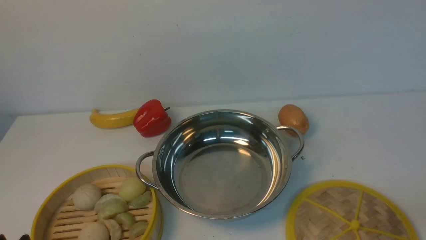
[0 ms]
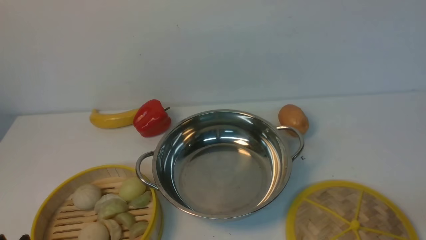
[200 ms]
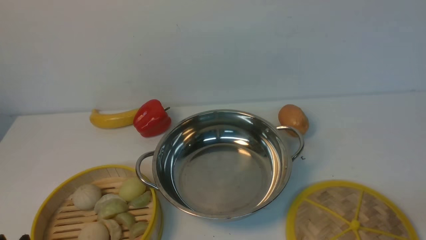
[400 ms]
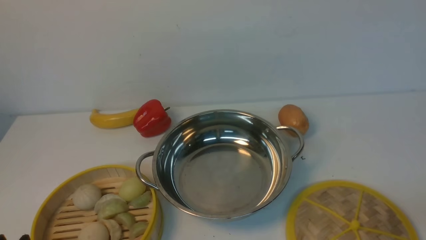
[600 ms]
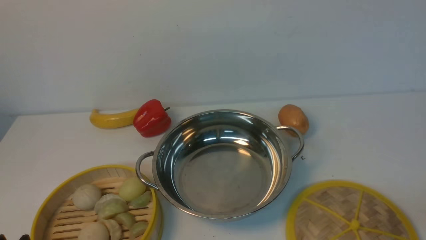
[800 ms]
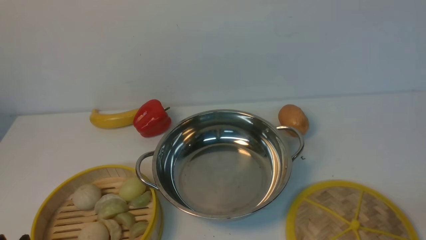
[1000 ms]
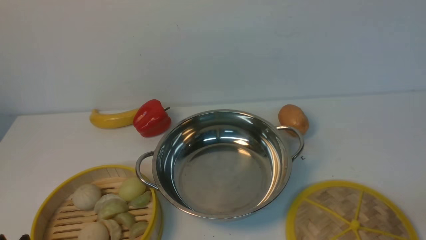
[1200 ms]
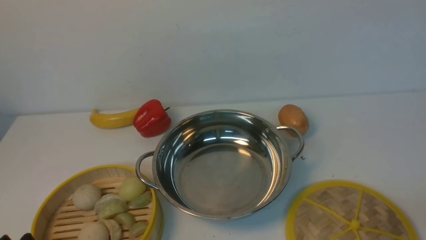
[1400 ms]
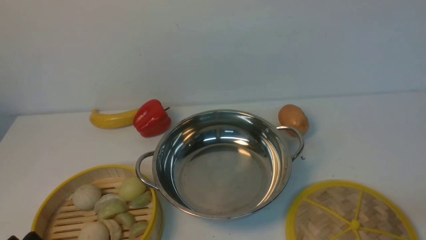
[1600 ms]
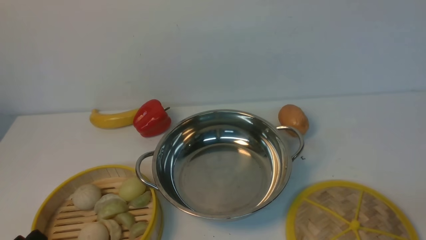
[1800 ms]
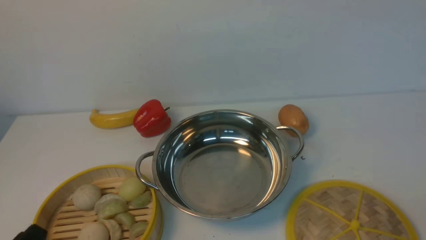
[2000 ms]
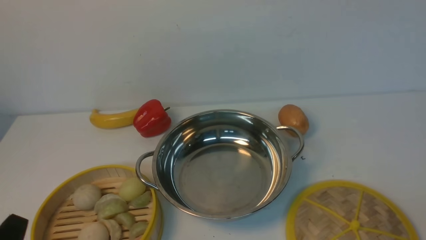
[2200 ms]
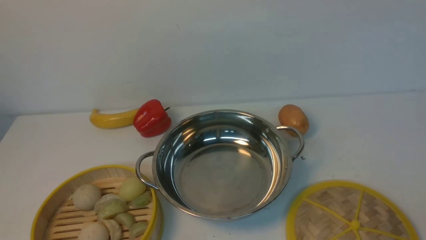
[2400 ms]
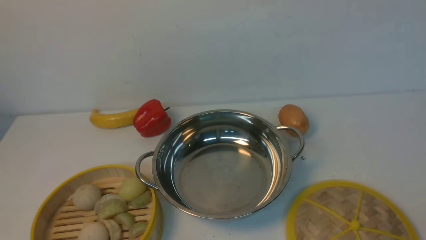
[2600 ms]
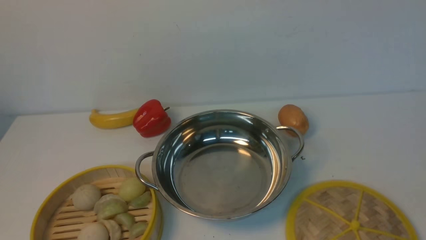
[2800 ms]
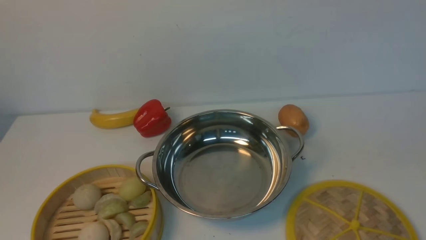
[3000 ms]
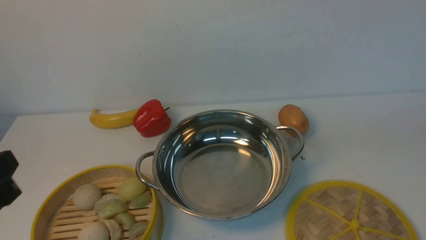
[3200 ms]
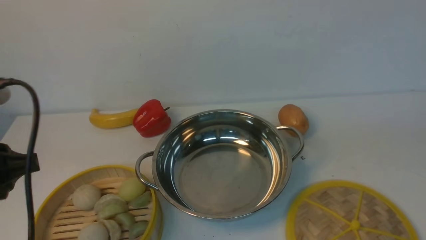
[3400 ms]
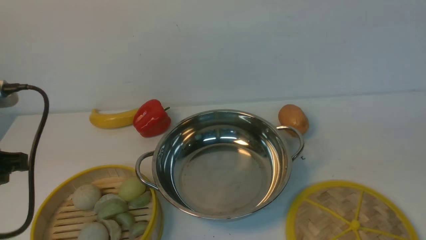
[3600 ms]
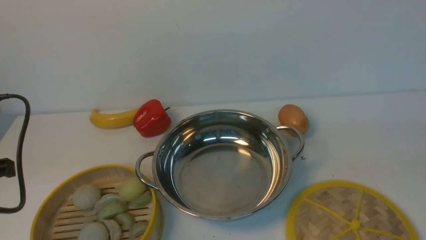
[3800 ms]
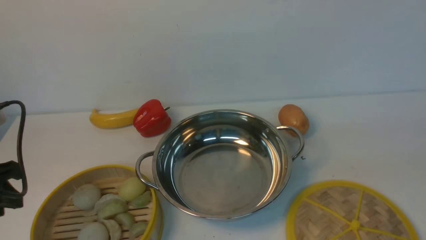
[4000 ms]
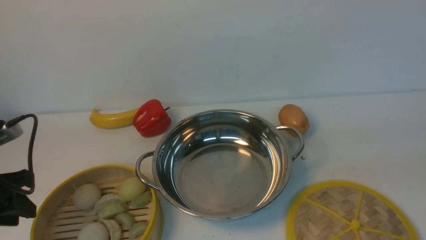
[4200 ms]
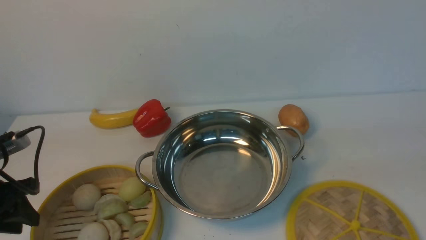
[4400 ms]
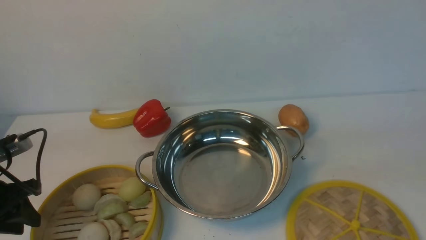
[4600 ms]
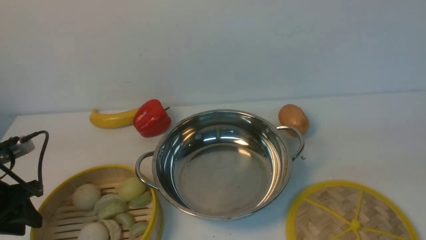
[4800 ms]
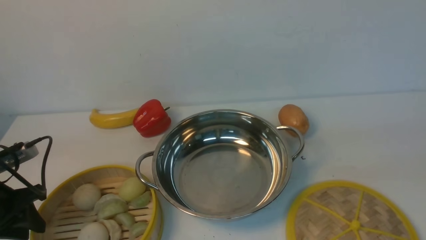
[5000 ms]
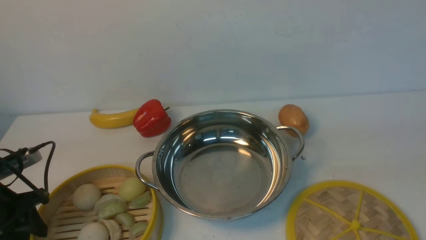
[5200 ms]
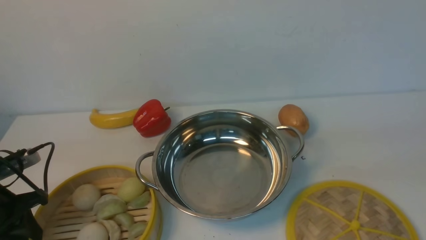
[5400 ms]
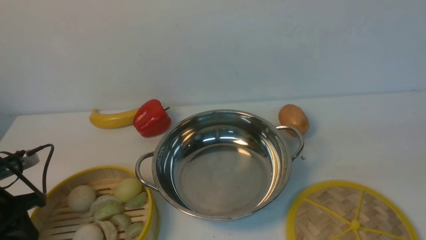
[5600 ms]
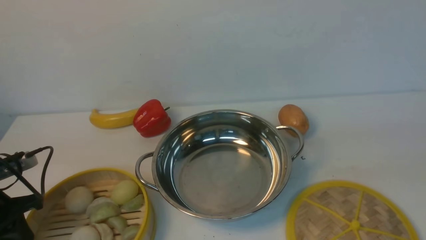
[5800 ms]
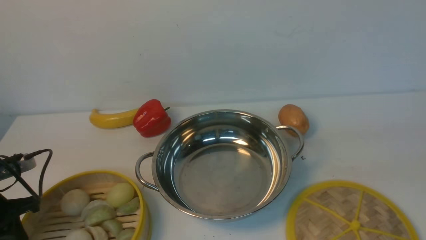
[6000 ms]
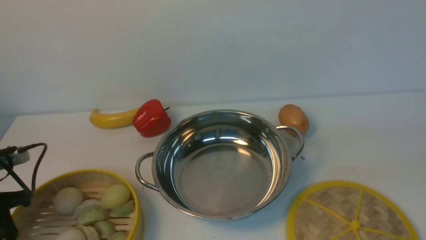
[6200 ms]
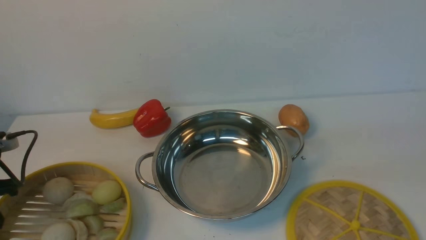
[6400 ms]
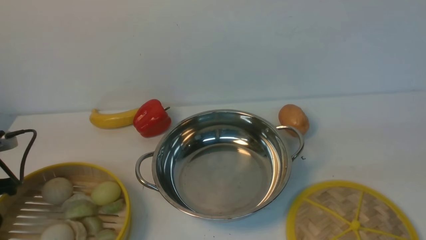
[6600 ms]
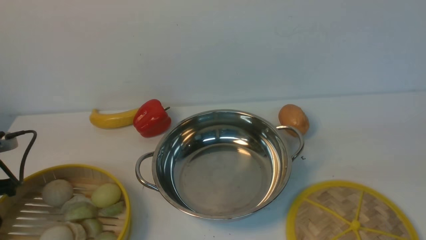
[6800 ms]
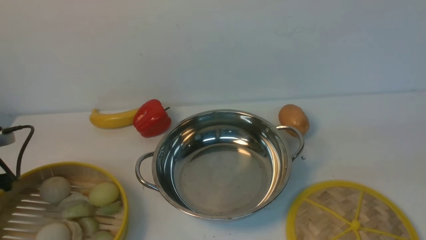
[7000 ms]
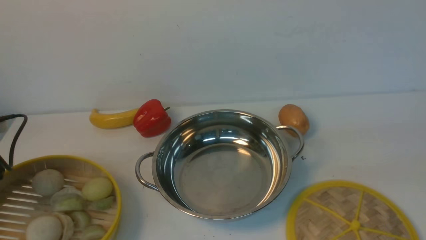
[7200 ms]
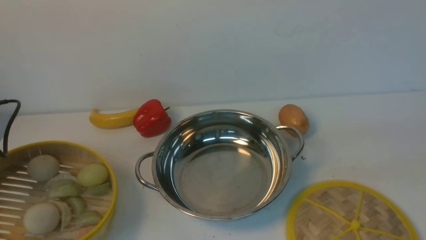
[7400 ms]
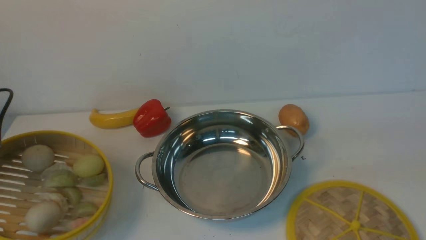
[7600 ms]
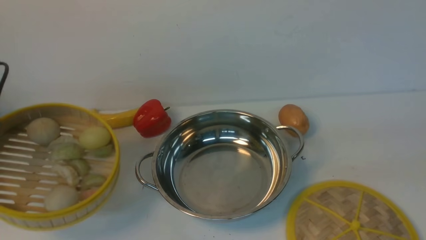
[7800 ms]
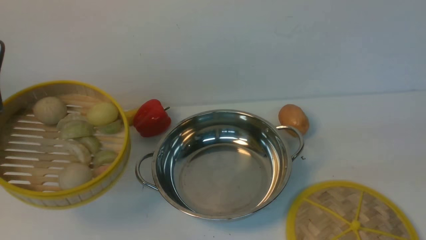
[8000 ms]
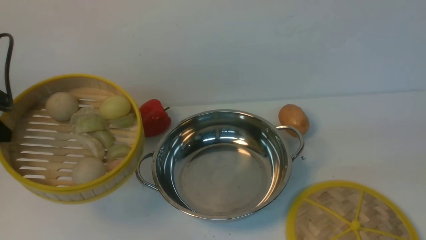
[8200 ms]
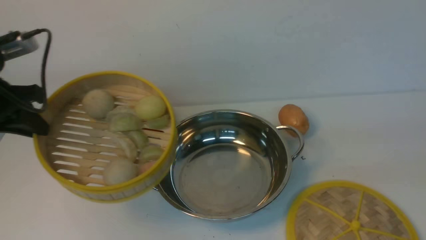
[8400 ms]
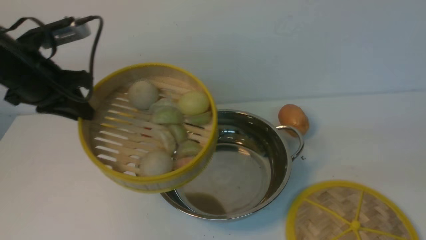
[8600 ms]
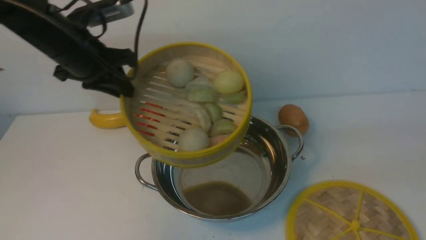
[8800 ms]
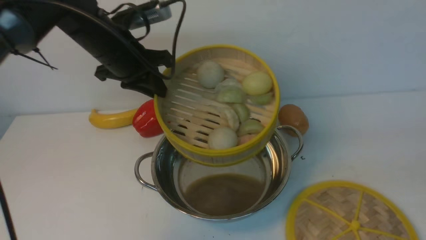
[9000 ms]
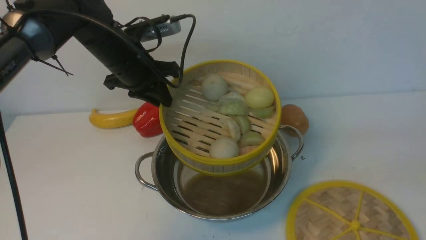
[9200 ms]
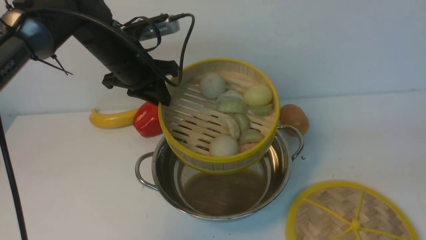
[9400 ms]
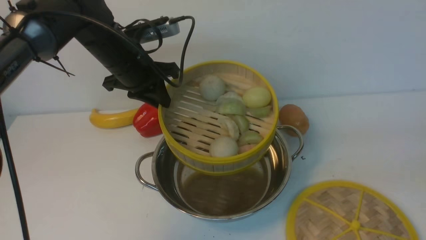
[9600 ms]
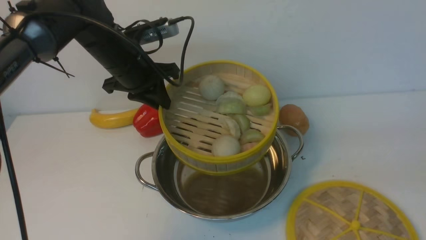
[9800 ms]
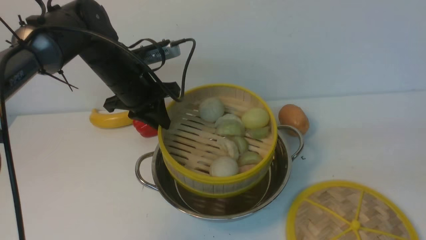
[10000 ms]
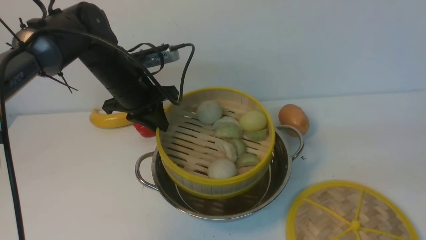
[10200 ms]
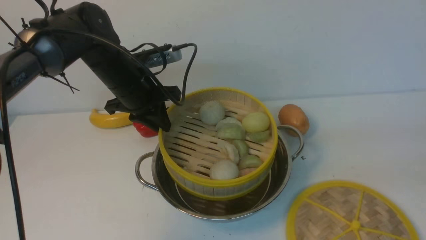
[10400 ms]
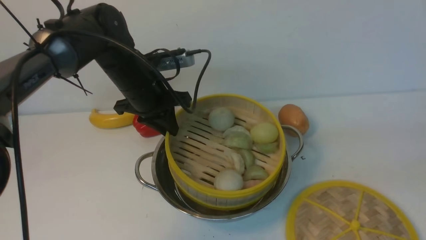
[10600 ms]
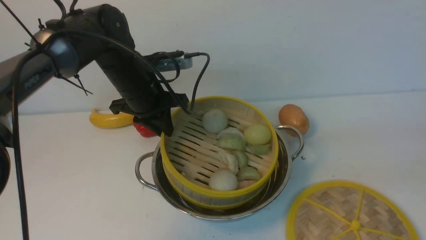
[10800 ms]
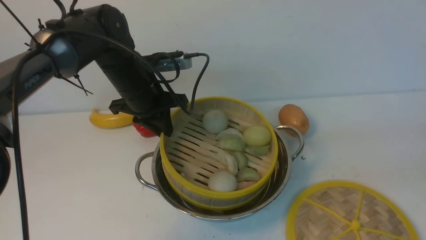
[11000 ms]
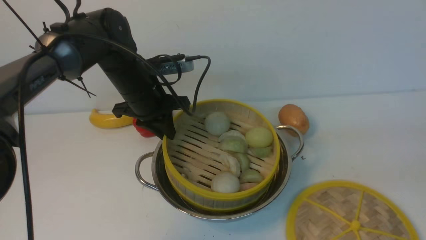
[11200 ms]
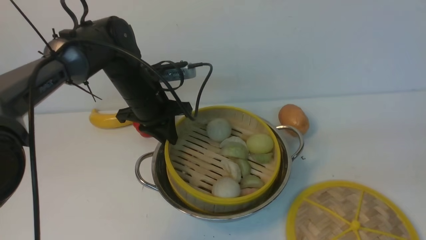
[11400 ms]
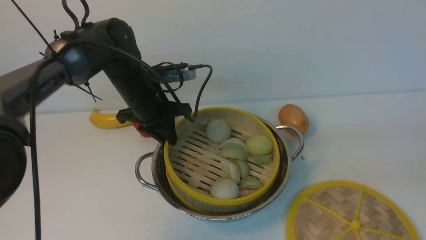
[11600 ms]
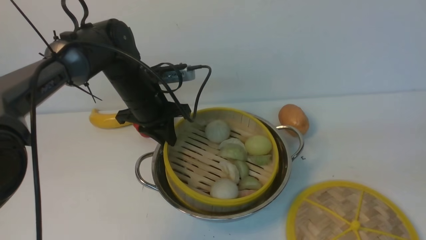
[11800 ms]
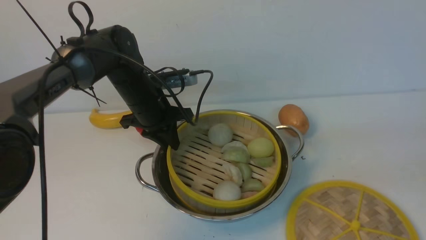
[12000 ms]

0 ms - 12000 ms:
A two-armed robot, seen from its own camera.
Task of the whole recording: place the steamer in the pot on the white table, and put the lid on the steamer.
Step, 0 ms - 7800 ms: use the left arm to lift the steamer closest to it.
3000 ms - 4400 ms: The left gripper travels forward, to the left and downward by approximately 20 cm.
4400 ms - 6000 ms: The left gripper closes its fingers.
6000 ms - 7600 ms: The left gripper moves upward, roughly 10 cm.
7600 ms - 9000 ms: The left gripper moves to the right and forward, approximately 25 cm.
9000 ms - 10400 ms: The left gripper travels downward by about 5 cm.

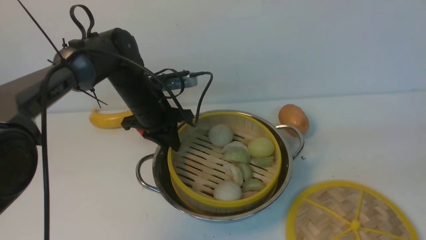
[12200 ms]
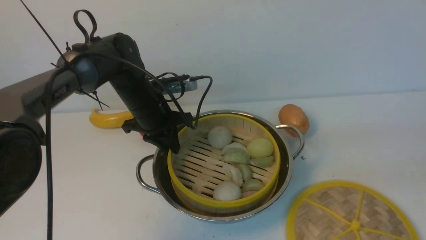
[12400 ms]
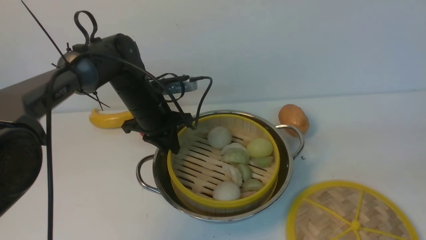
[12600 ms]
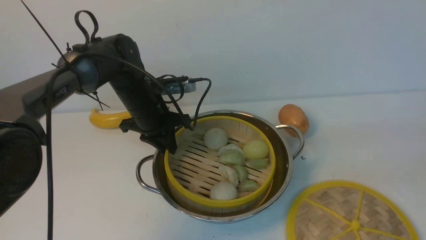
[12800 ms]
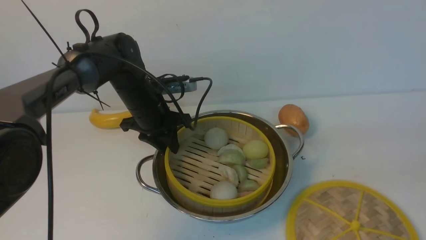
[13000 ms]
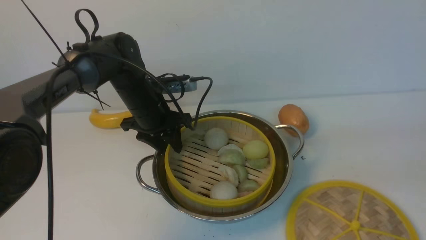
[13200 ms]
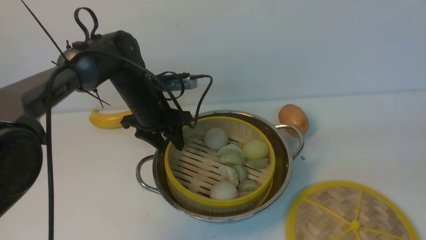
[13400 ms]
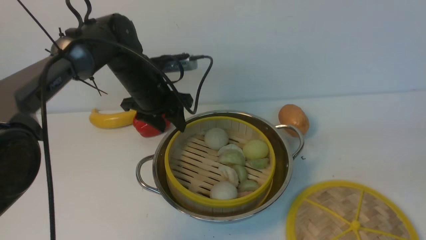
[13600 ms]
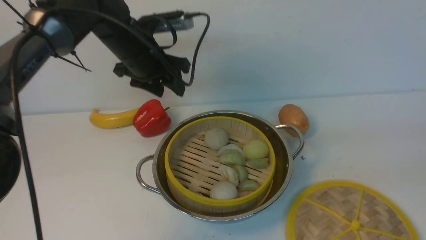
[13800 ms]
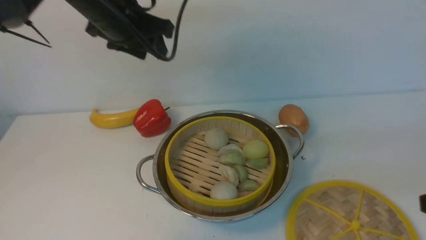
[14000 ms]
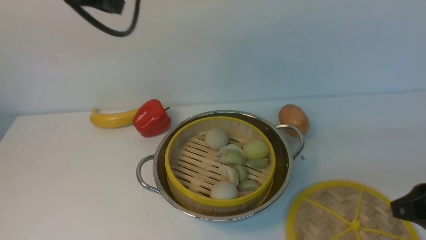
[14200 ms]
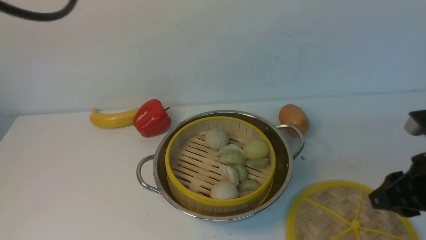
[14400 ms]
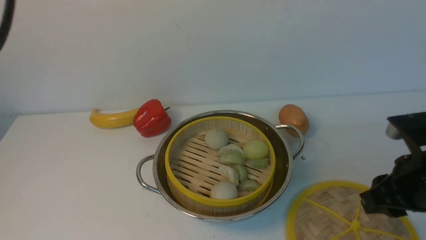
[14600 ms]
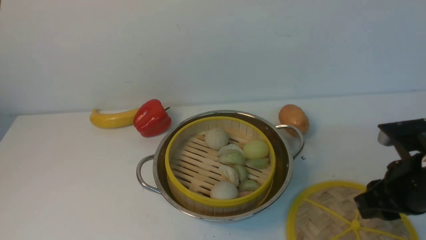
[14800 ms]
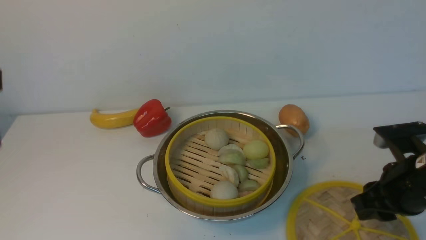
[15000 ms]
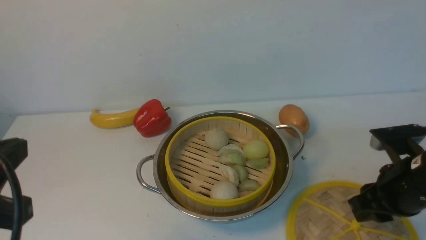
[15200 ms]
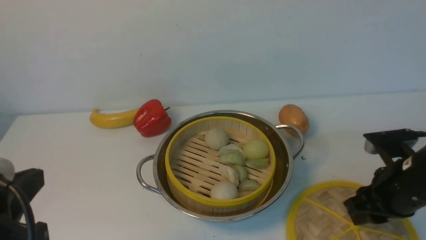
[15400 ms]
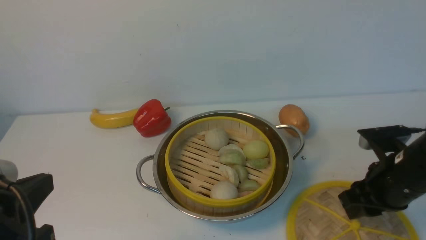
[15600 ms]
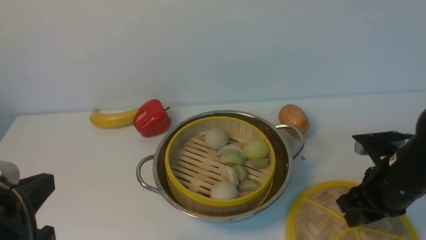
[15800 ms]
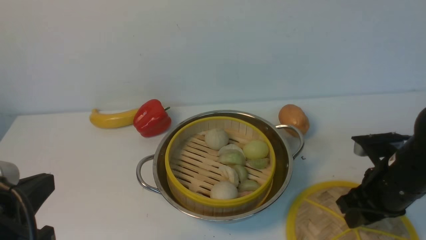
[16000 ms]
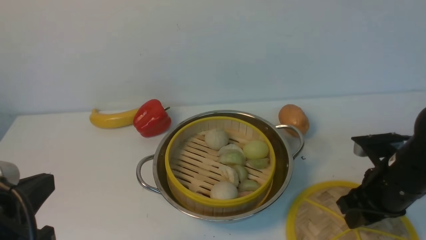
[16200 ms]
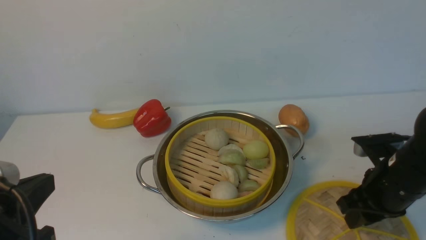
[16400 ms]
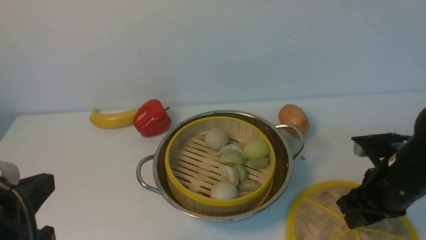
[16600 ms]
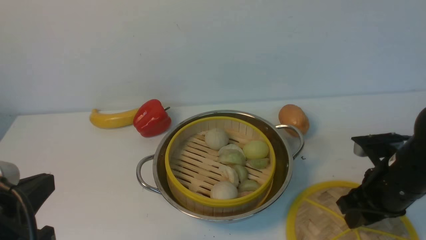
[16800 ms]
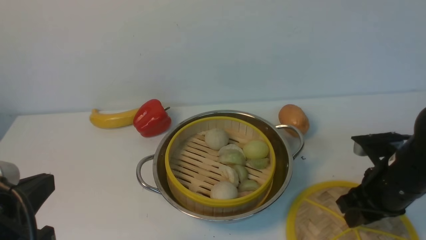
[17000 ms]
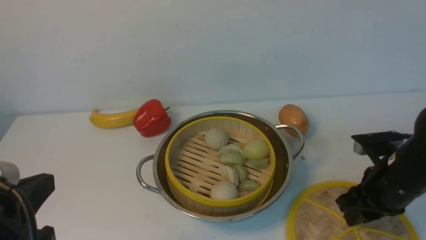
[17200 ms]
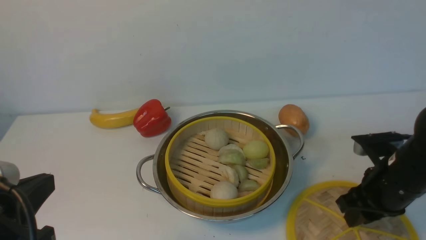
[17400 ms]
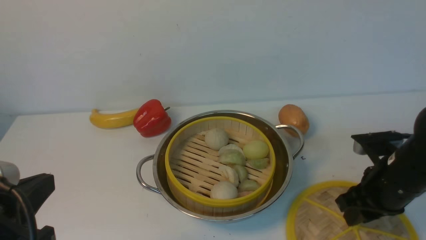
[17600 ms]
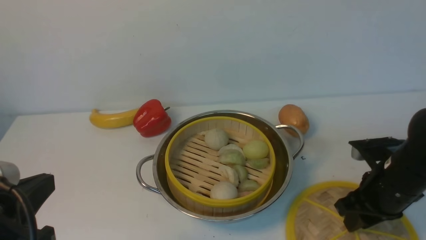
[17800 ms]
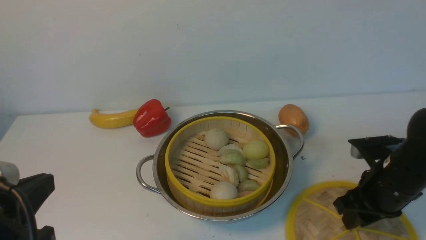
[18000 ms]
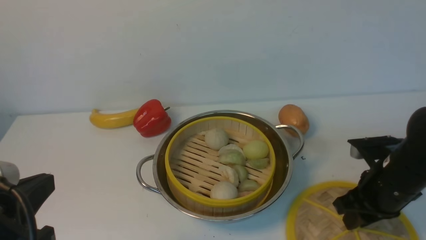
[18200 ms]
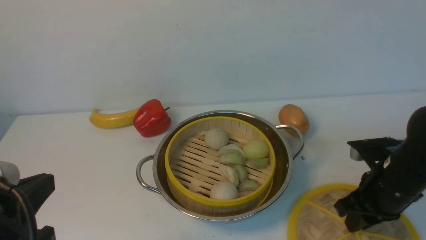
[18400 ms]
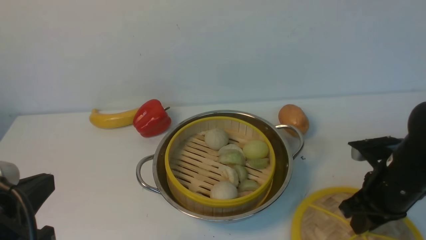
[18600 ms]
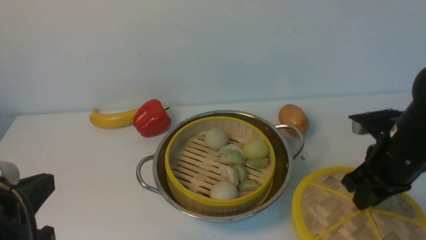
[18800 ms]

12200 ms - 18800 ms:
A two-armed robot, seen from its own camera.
Task of the whole recording: place the steamer in the pot on the white table, and put the lid on the steamer.
12200 ms - 13800 ms: The left gripper is displaced upward by approximately 10 cm, and opens.
13800 ms - 15400 ms: The left gripper heads backward, covering approximately 35 cm, and closes its fingers. Meanwhile the right gripper is displaced forward, downward and to the left by about 15 cm.
15400 ms - 17200 ms: The grippers stay close to where they were, moving slightly.
17200 ms - 18800 ms: The right gripper closes.
